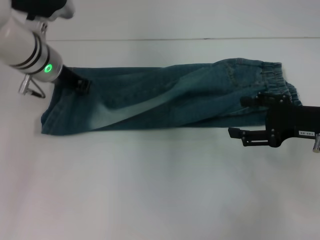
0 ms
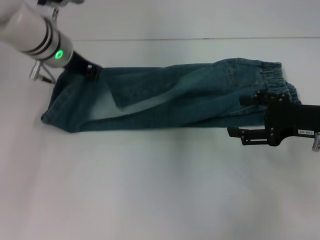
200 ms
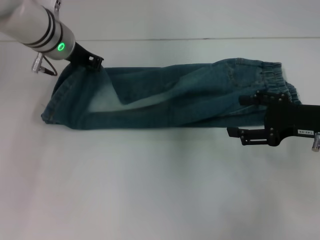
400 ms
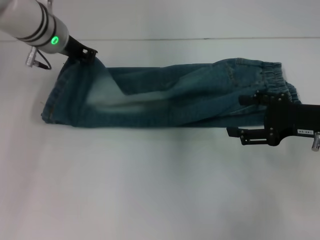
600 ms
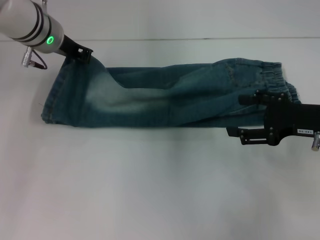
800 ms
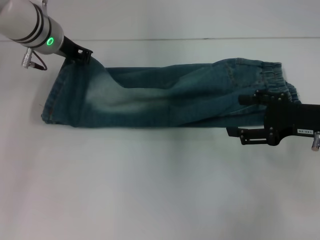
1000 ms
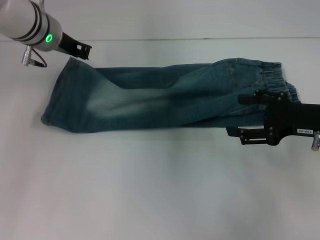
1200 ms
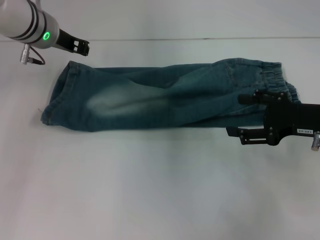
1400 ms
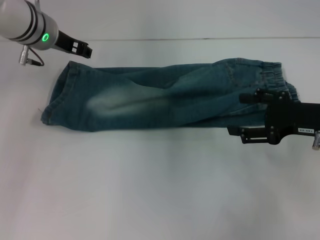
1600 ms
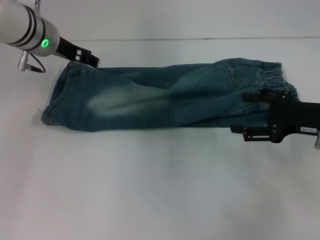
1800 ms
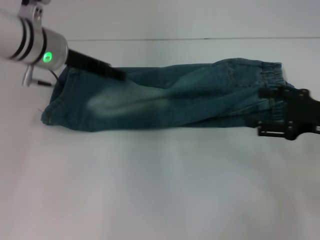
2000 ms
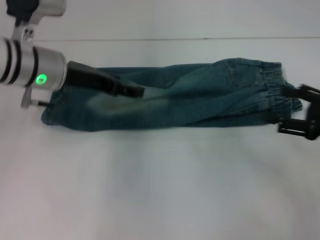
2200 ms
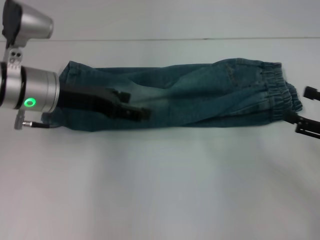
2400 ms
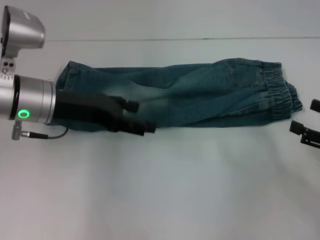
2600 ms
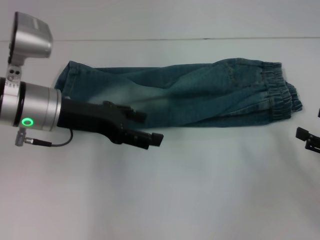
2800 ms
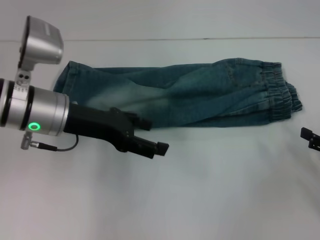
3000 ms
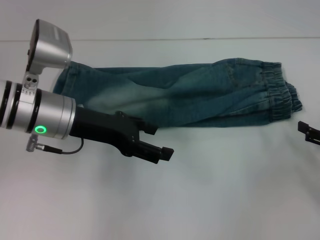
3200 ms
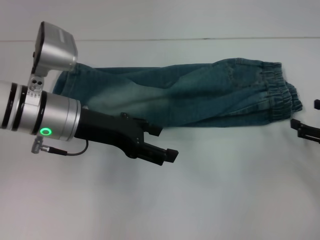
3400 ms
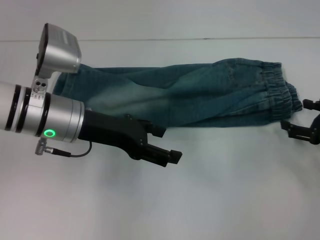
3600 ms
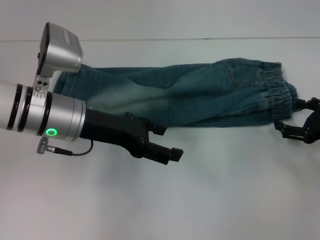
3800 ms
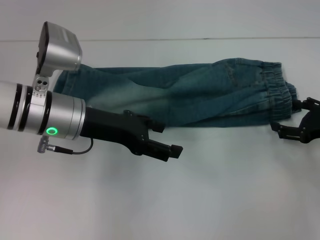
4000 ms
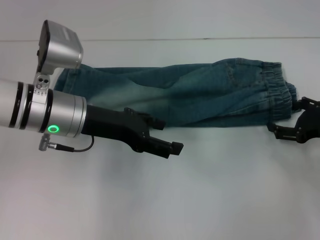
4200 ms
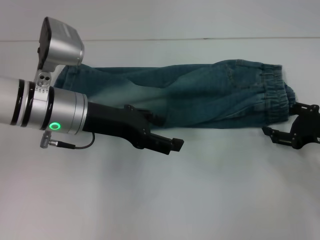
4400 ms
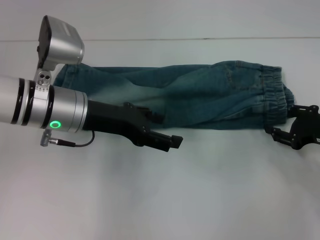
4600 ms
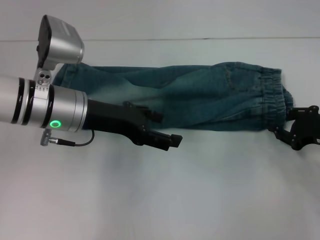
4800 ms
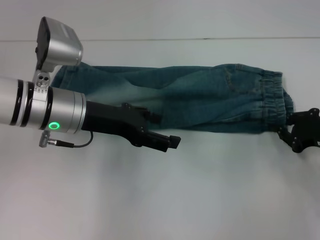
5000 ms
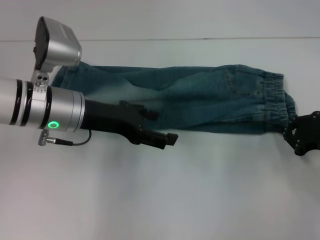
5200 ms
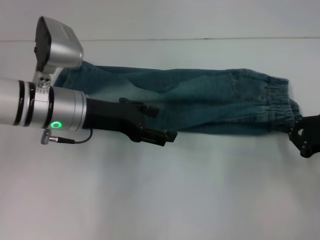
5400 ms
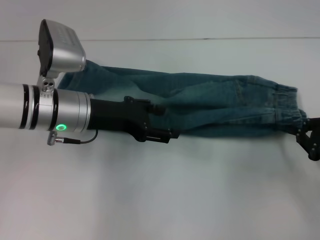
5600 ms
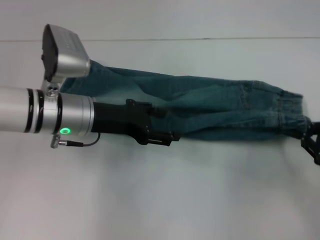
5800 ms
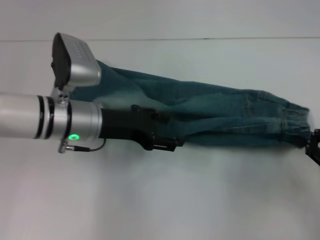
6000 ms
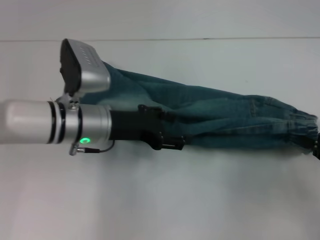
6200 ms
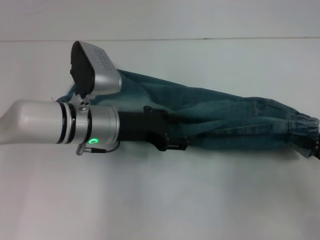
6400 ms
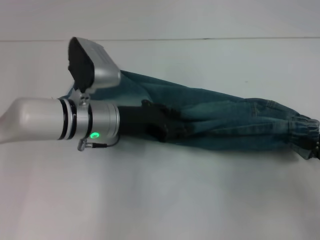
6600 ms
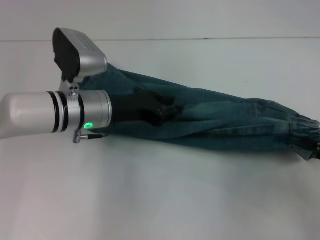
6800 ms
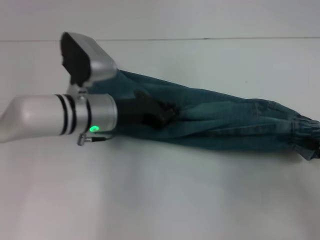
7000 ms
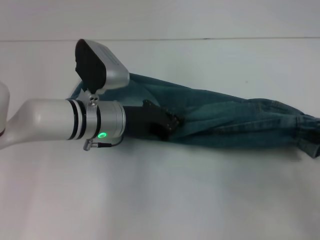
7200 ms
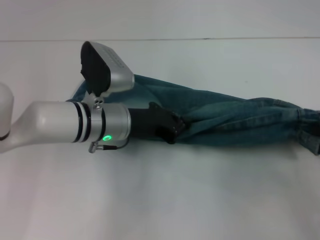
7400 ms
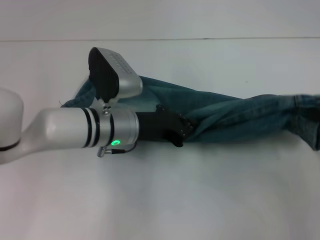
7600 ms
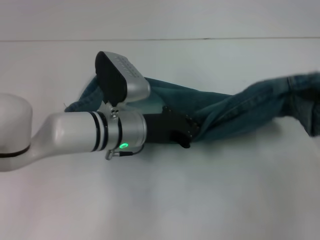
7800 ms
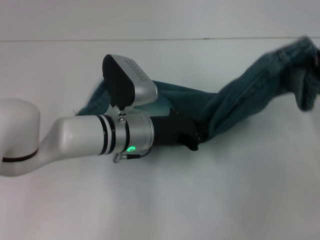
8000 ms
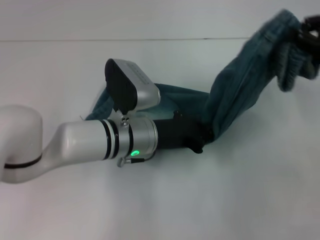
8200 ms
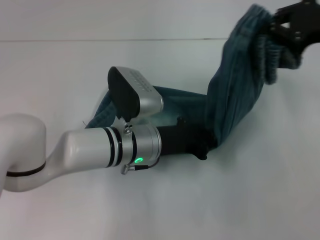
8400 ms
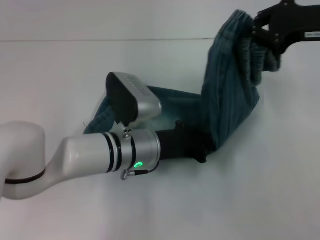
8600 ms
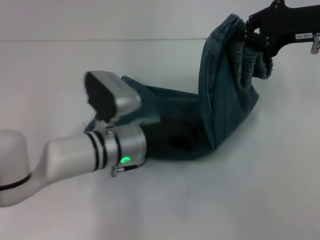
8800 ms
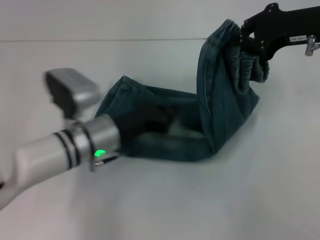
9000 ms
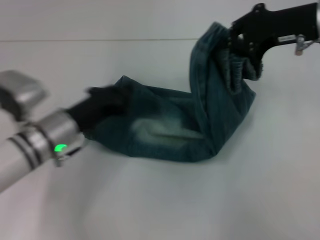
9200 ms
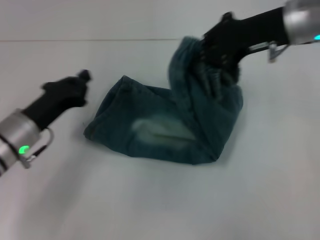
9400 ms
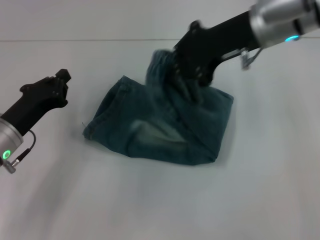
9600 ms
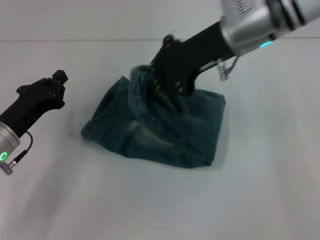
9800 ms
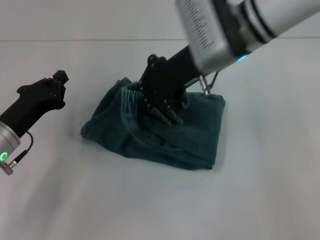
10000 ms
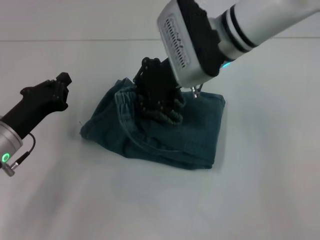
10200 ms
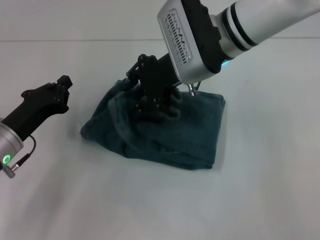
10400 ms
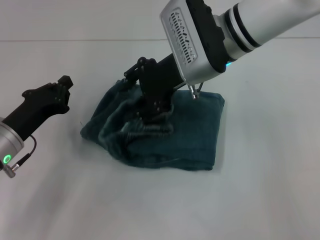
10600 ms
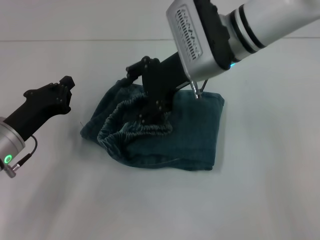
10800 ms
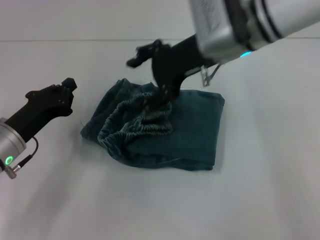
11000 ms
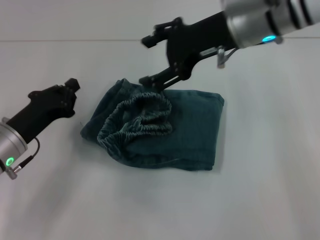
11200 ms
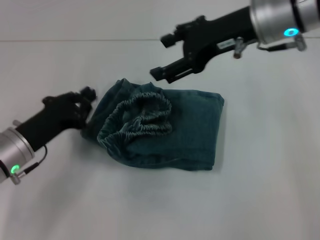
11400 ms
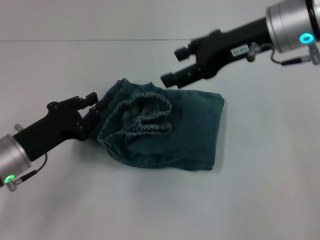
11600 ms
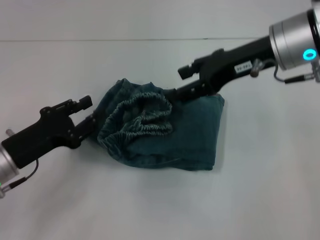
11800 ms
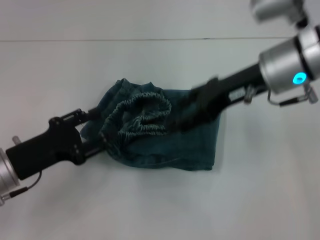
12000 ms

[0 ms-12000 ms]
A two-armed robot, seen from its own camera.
Step, 0 ms to 5000 ms: Grab the waistband with your right hand.
Step, 5200 ms to 8600 ms: Press the middle of the pants with your left hand.
Step, 8800 ms to 10600 ms: Fold to the left with your right hand.
0 ms to 1600 ms: The grippers make only small movements.
1600 ms to 3000 ms: The right gripper travels to the right, backward and downward by about 15 cm; the left gripper heads backward, covering some 15 cm, and opens its fingers.
3000 ms to 4400 ms: The right gripper is displaced forward by about 5 cm.
4400 ms to 6000 ms: The right gripper is displaced backward by about 5 cm, and closes up.
6000 ms to 7600 ms: The right gripper goes about 5 cm upward; the left gripper is displaced to the right by roughly 5 cm, and closes up.
7600 ms to 9000 ms: The right gripper travels forward, to the left and upward by about 20 cm.
9000 ms to 10400 ms: The grippers both shift to the left by roughly 15 cm.
10400 ms to 12000 ms: The left gripper opens up. Meanwhile the right gripper goes some 10 cm to the right, and opens.

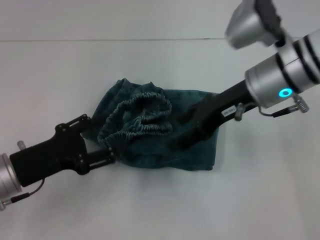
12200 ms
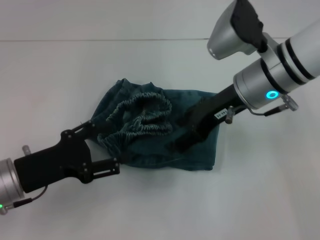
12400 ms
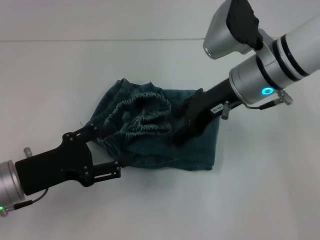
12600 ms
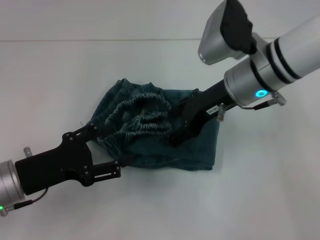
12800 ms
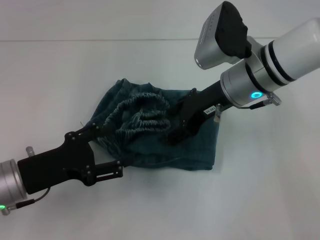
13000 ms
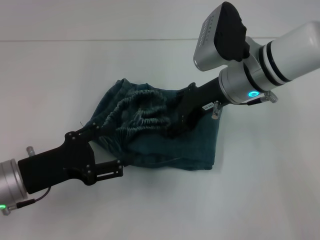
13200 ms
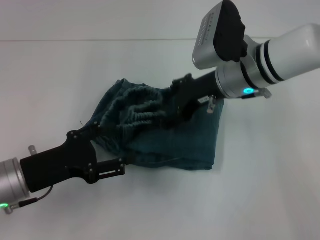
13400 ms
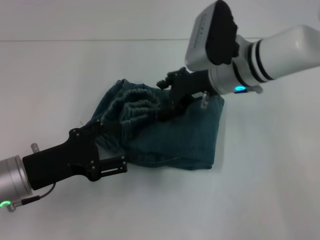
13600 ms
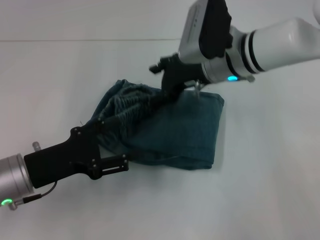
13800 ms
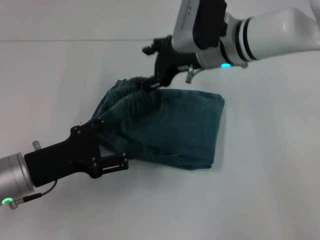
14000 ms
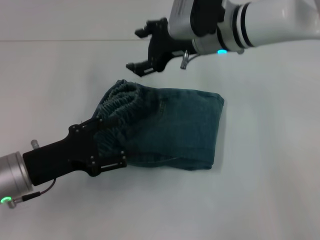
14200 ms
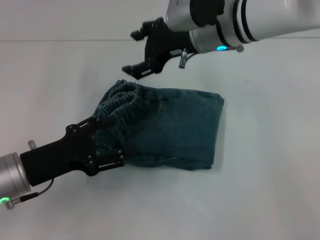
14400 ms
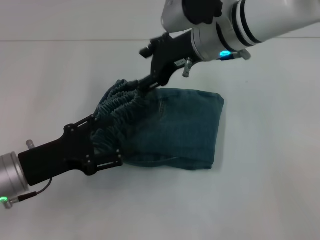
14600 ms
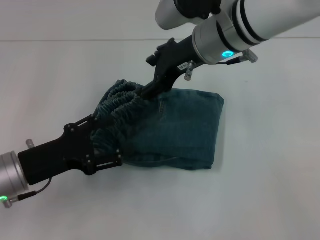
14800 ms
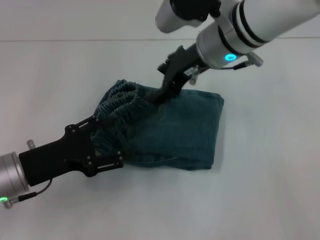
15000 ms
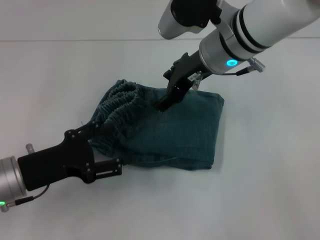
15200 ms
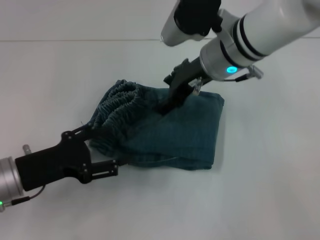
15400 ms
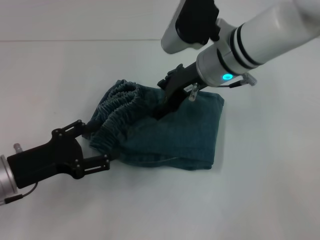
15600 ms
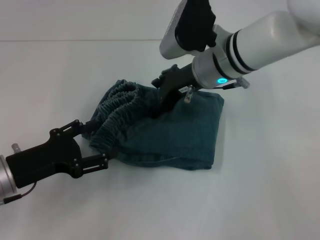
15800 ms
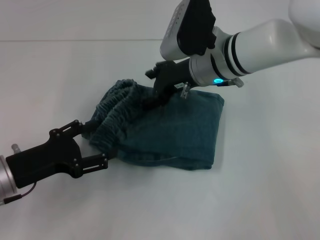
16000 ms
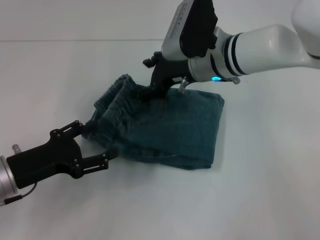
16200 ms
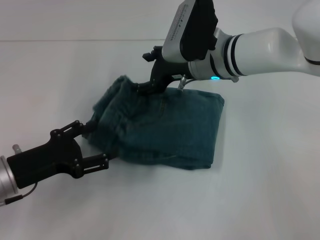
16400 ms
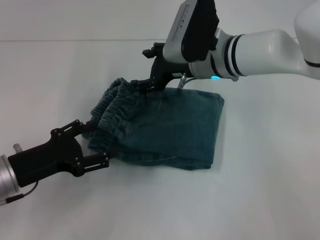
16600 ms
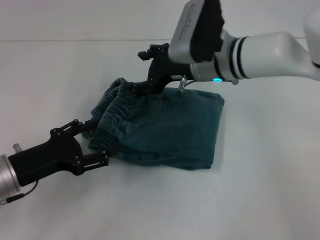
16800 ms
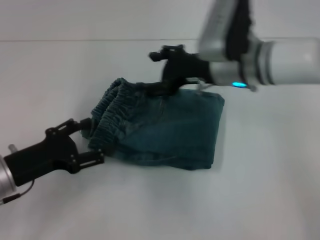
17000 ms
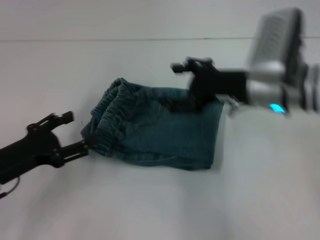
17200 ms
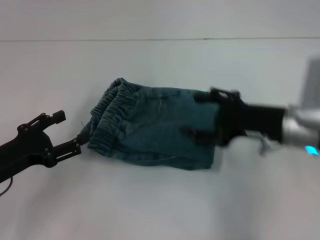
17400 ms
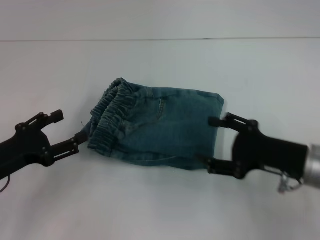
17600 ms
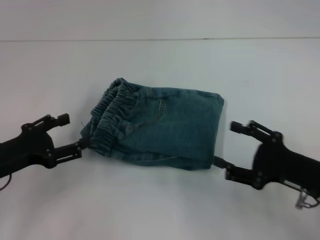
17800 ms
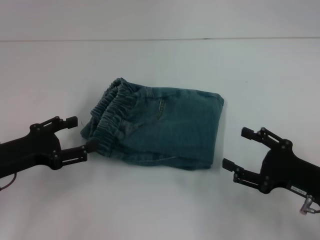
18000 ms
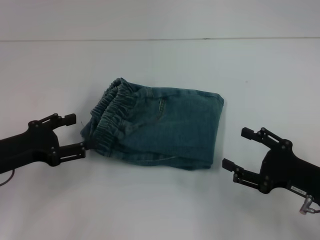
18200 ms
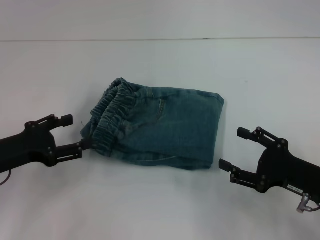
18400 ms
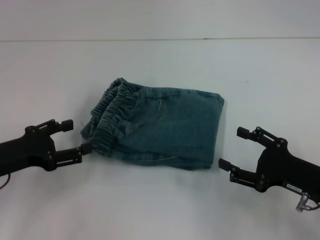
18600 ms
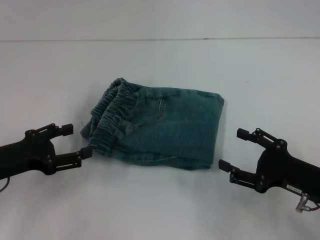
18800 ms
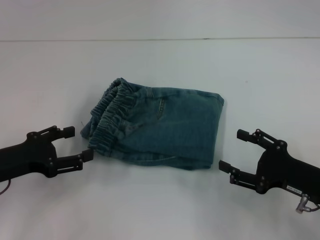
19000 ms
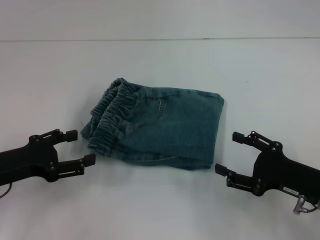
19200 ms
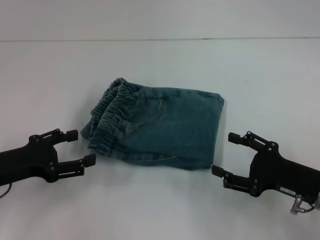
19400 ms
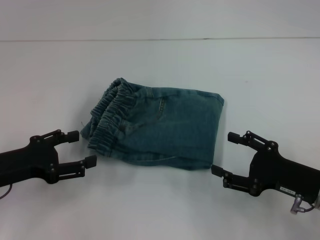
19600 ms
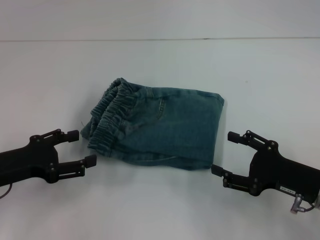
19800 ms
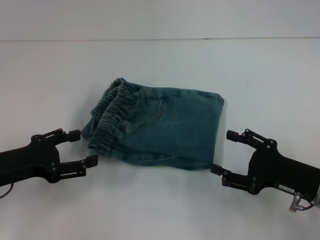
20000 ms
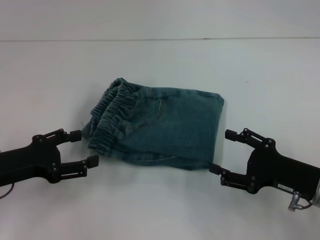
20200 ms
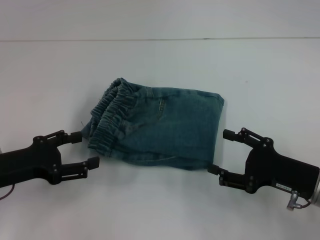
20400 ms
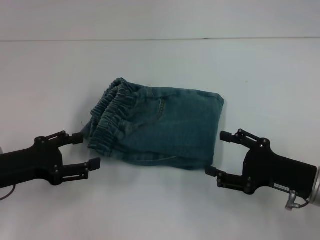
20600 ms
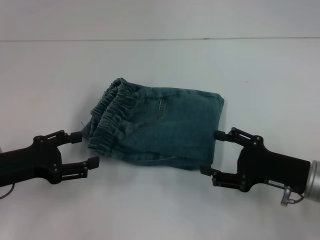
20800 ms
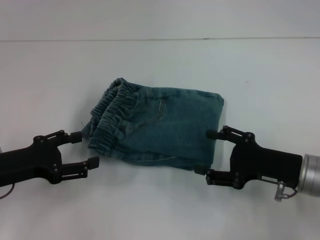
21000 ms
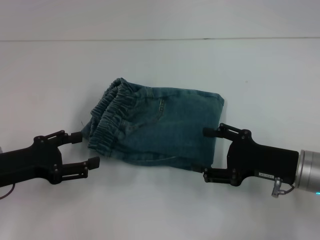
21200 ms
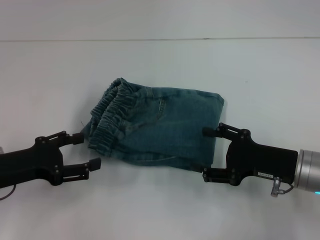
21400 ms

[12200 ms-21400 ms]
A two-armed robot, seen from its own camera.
Step, 12200 ms to 16400 ms: Adjust the pants with your right hand.
12200 ms to 13800 ms: The right gripper heads forward, covering roughly 5 cm.
13800 ms to 15200 ms: The right gripper ends up roughly 5 cm from where it was.
15200 ms to 16800 ms: The right gripper travels downward by approximately 5 cm.
16800 ms to 18400 ms: The right gripper goes roughly 30 cm backward, to the right and downward.
18400 ms to 21400 ms: There are only small adjustments of the grippers.
